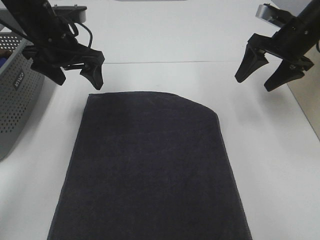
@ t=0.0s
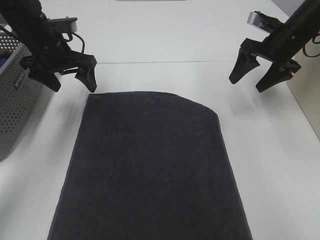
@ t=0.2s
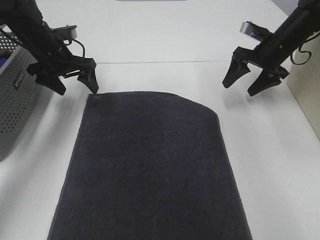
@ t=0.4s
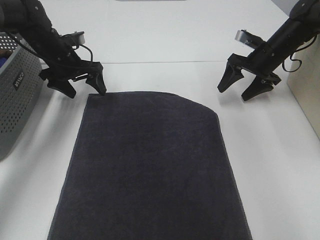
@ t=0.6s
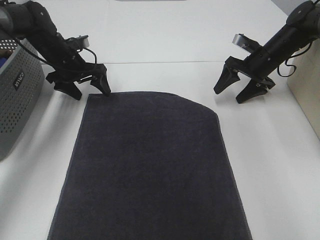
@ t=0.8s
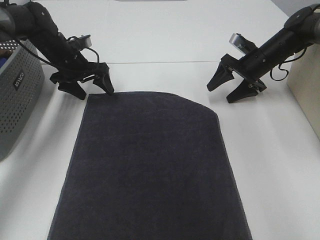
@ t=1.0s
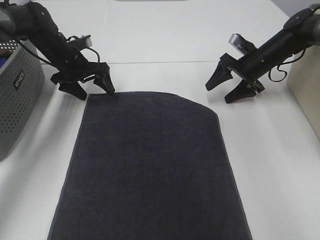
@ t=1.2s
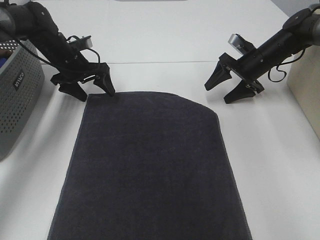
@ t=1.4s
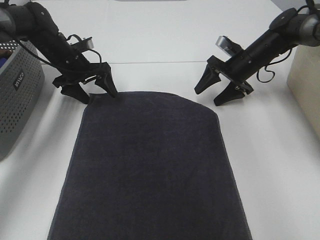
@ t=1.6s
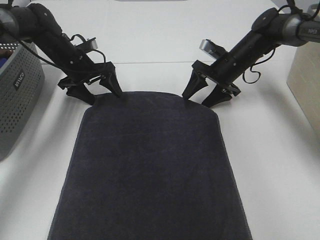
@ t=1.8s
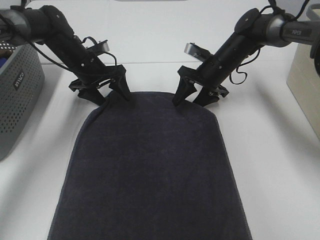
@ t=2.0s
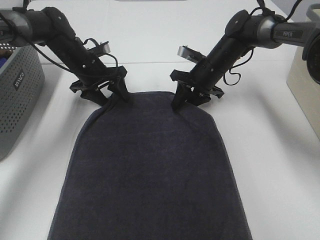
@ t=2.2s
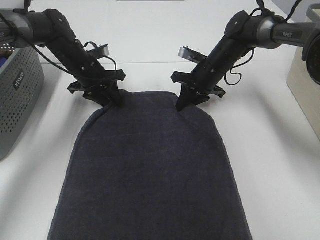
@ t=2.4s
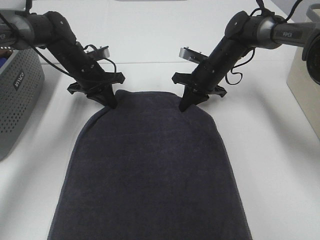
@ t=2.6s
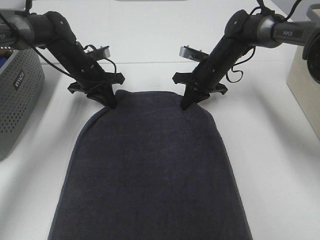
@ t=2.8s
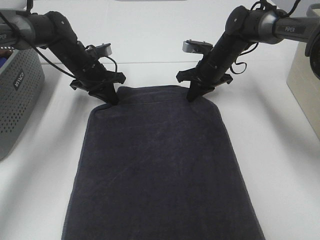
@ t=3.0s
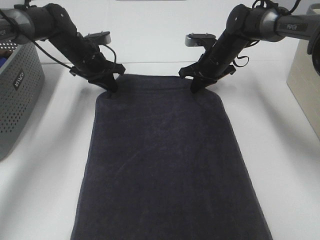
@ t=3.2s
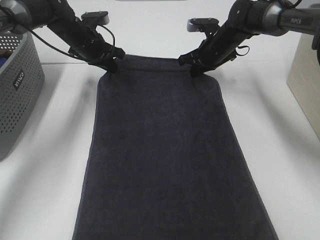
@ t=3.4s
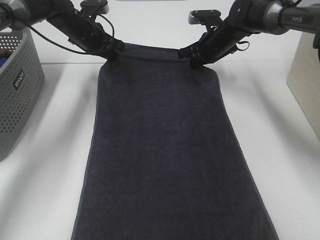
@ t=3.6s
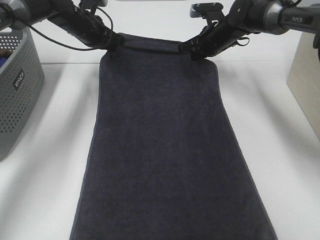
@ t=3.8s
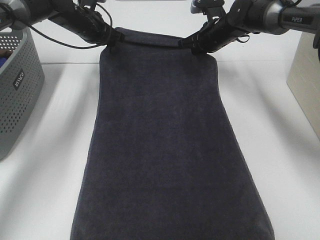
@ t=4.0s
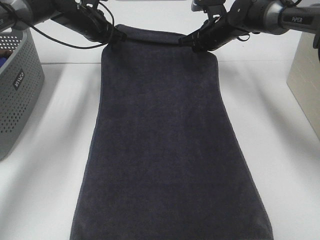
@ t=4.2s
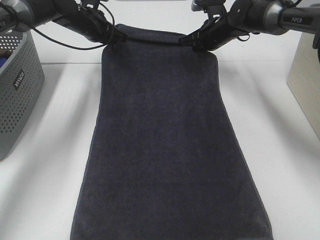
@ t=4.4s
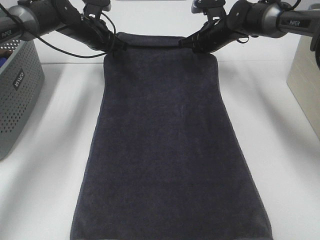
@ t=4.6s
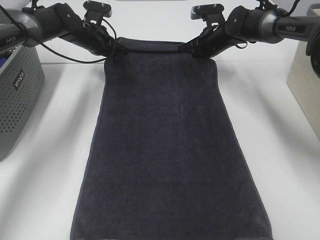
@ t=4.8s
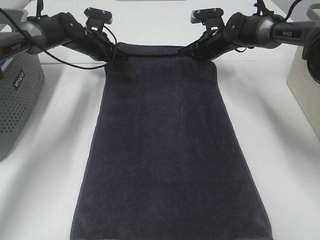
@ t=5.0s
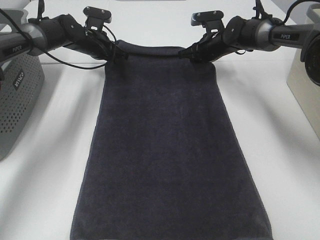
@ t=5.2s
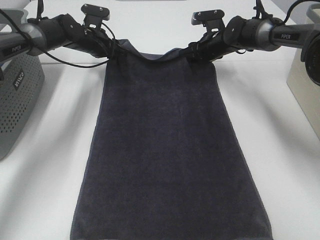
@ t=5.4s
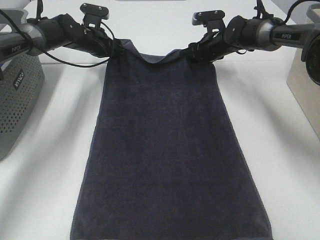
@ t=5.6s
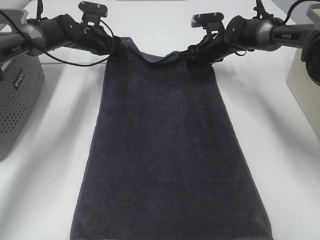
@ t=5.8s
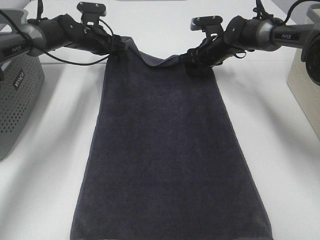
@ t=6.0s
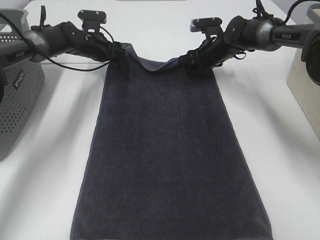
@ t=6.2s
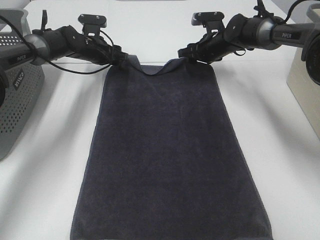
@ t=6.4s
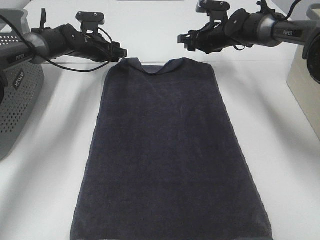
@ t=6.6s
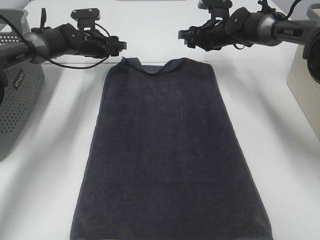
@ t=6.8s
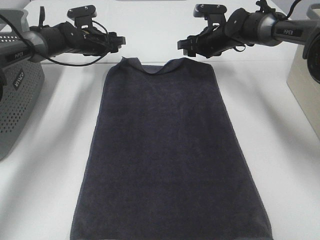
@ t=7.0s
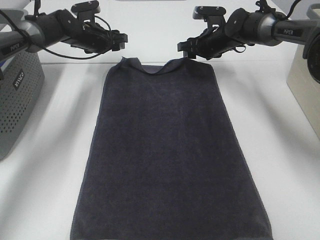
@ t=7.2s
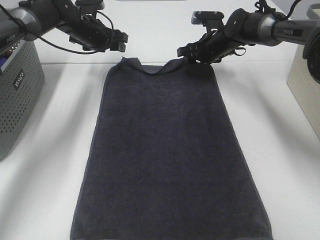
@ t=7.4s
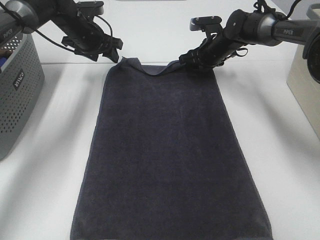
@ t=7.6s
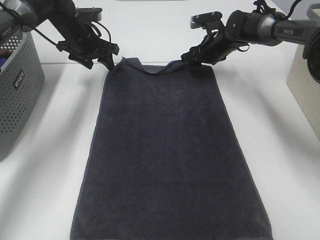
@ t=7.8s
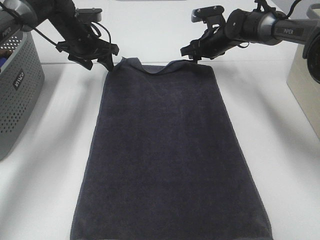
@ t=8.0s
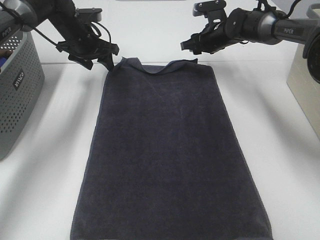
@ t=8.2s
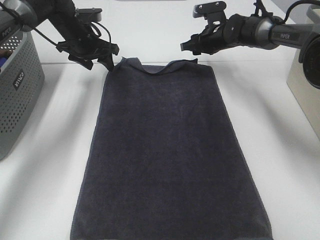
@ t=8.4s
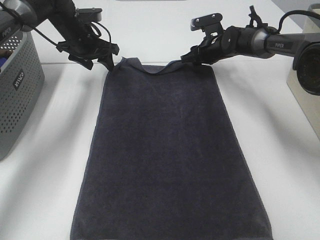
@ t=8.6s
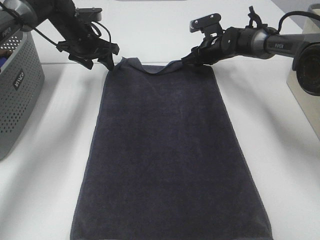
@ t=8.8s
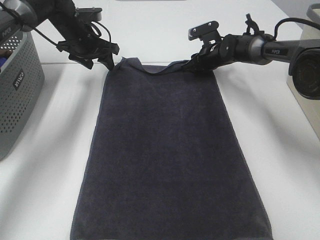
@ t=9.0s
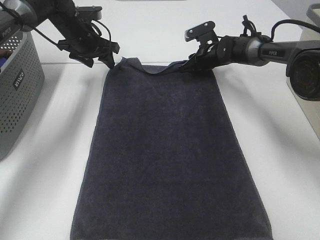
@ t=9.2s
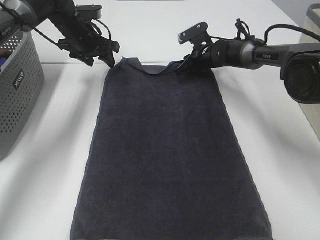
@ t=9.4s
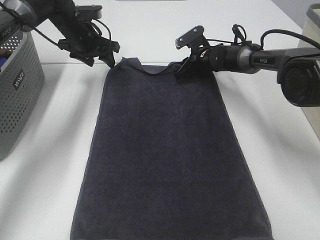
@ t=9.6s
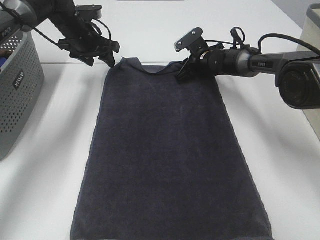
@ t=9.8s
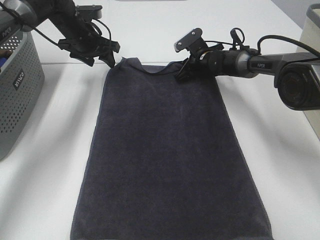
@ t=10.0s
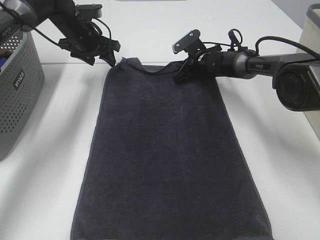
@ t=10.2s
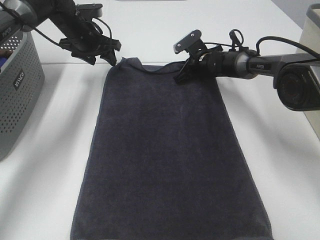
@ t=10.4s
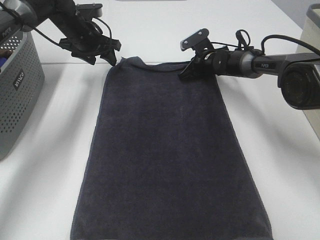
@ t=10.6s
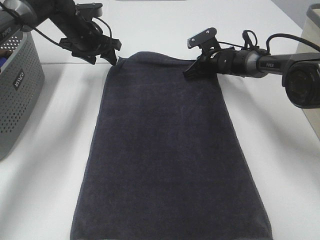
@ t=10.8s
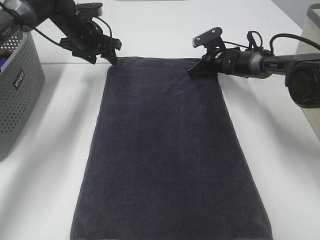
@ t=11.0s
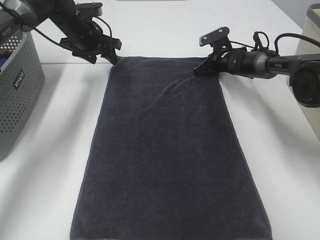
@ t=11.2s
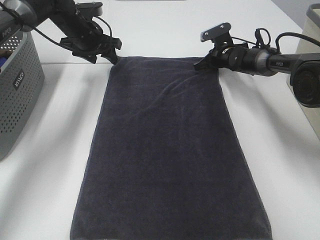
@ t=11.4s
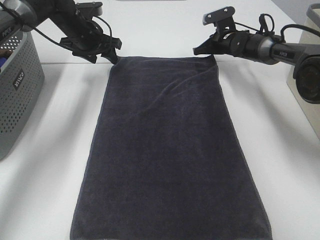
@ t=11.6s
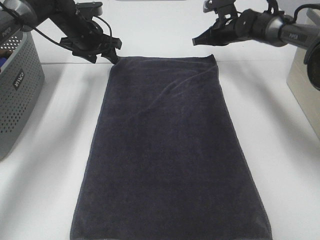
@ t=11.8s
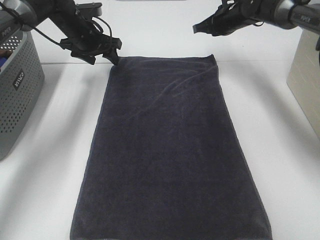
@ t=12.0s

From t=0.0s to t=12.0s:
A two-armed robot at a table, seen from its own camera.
Task of the whole recording: Remove the towel and place it.
Step, from t=0.0s to t=4.4s: Left hand:adjust the gray towel.
Step, from t=0.0s to t=4.4s: Right hand:adjust the gray towel.
From t=0.0s to t=1.6s: The two grippers go approximately 15 cm downward and forward.
From t=1.6s to t=3.0s: The left gripper closes up; the right gripper shifts some 5 cm to the left, and closes its fingers.
From t=3.0s to t=4.4s: The left gripper goes some 10 cm upward and forward; the right gripper is displaced upward by approximately 5 cm.
From t=4.4s to t=6.0s: The left gripper opens up. The right gripper opens.
From t=7.6s to t=9.0s: The grippers move only a little.
From t=9.0s to t=10.4s: The right gripper closes its fingers.
From t=10.4s to t=12.0s: The right gripper heads upward, covering about 15 cm.

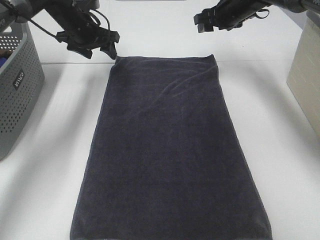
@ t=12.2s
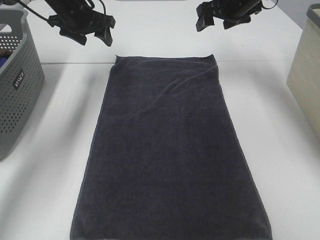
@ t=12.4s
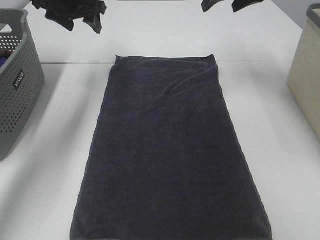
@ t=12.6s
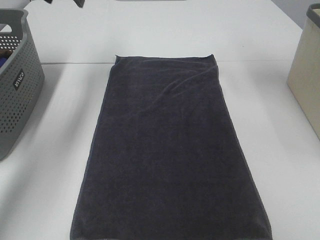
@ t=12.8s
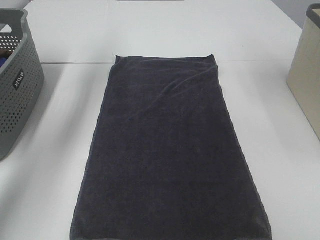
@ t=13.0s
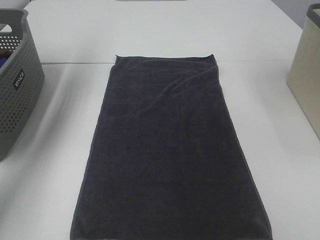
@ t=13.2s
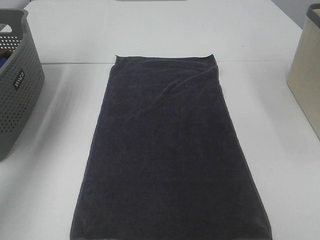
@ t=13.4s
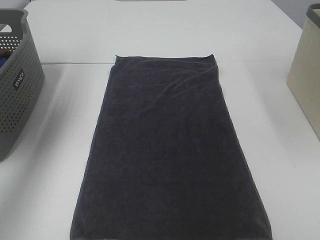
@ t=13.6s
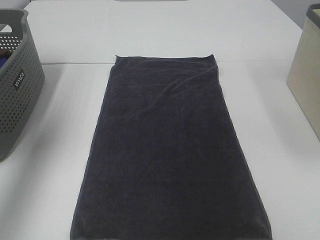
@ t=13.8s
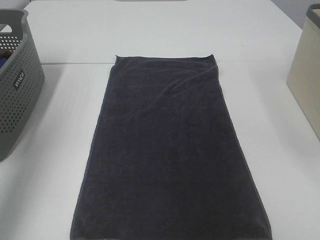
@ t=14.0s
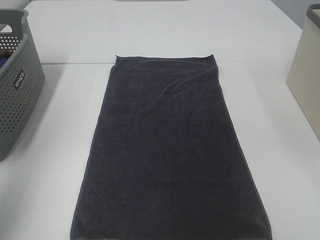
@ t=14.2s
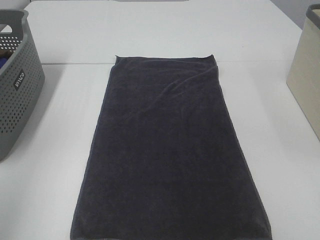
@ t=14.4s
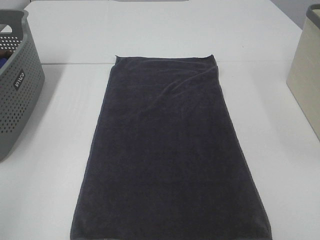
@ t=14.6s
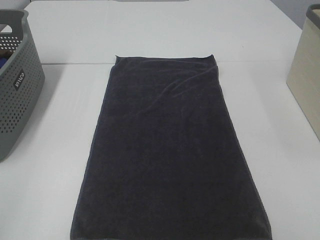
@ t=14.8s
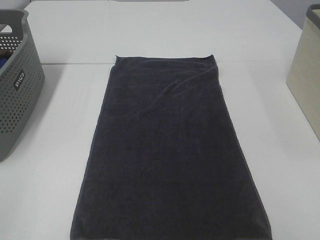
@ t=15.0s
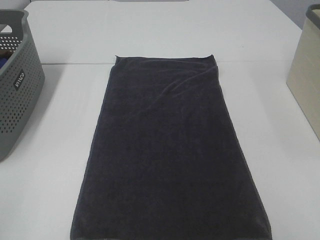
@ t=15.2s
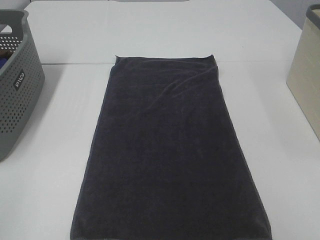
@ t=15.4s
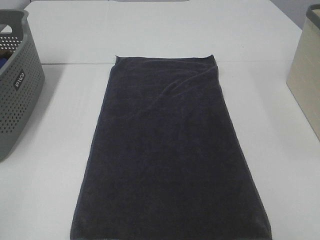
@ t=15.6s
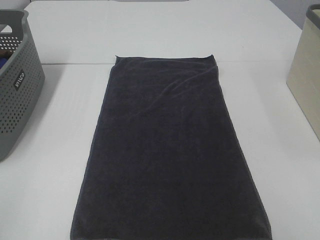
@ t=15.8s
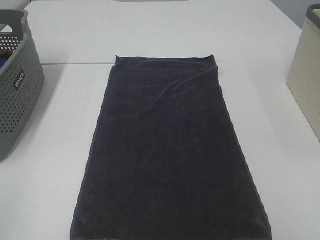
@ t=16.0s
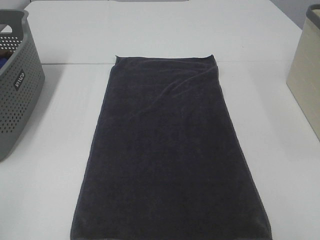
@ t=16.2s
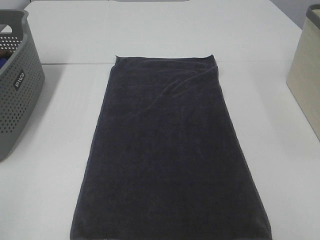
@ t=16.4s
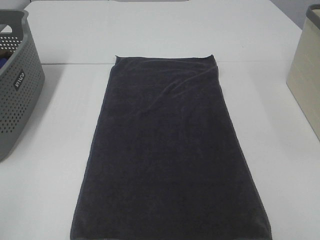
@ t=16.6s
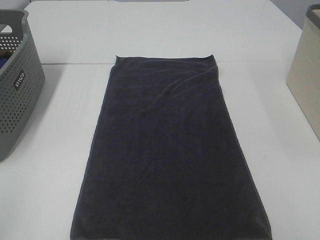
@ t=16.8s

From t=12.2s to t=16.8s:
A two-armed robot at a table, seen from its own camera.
Task of the whole recording: Remove the towel and place it.
From t=12.2s to t=13.8s: The right gripper heads backward and upward, covering some 40 cm; the left gripper moves backward, upward and to the left, approximately 40 cm.
From t=13.8s to t=15.2s: The left gripper travels backward and downward by approximately 35 cm.
